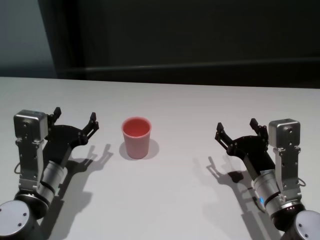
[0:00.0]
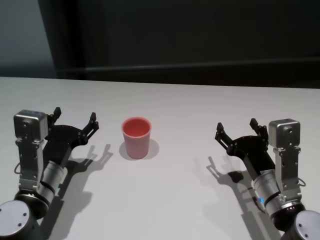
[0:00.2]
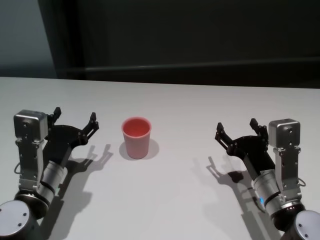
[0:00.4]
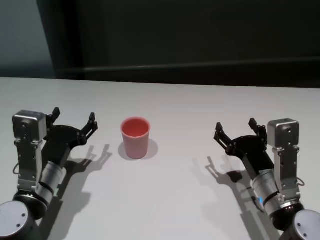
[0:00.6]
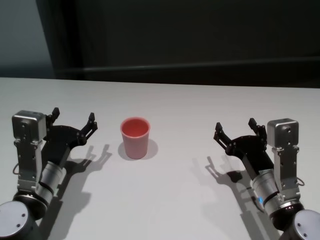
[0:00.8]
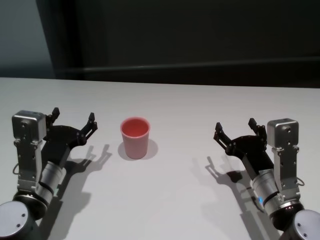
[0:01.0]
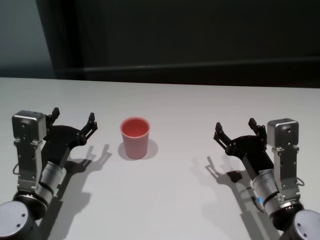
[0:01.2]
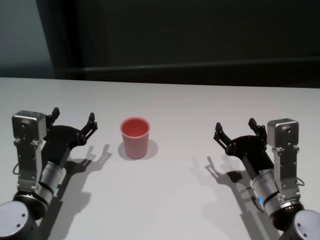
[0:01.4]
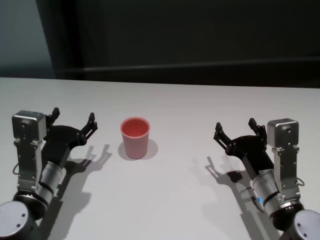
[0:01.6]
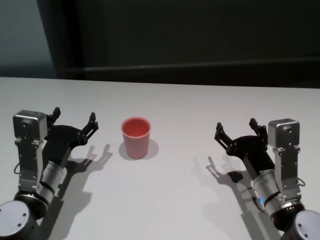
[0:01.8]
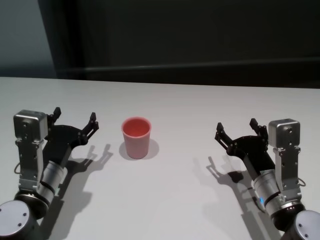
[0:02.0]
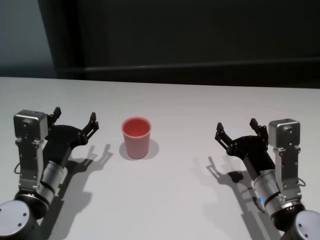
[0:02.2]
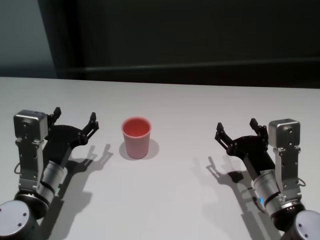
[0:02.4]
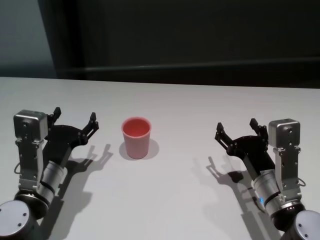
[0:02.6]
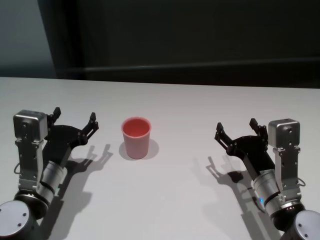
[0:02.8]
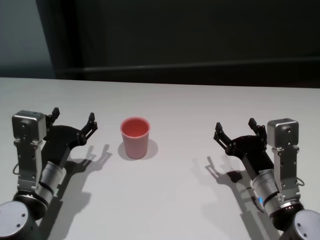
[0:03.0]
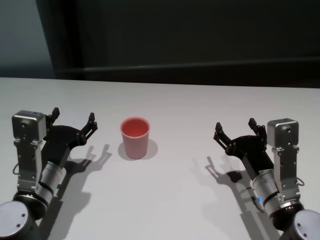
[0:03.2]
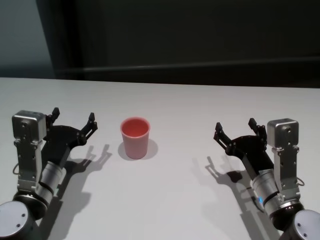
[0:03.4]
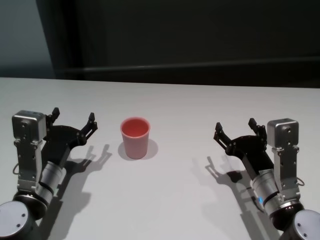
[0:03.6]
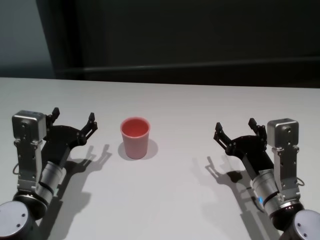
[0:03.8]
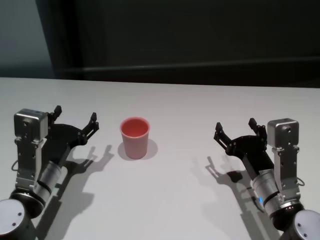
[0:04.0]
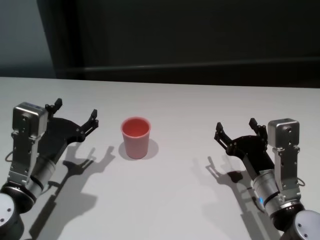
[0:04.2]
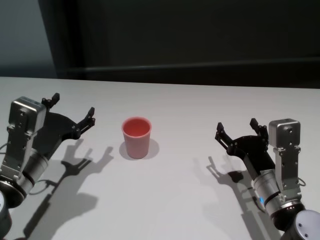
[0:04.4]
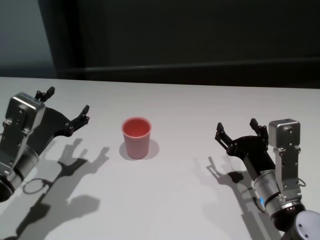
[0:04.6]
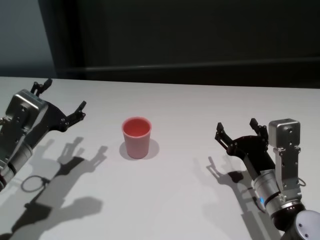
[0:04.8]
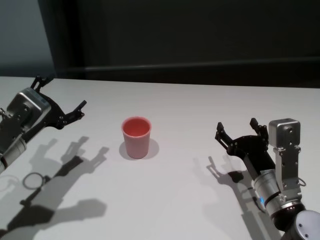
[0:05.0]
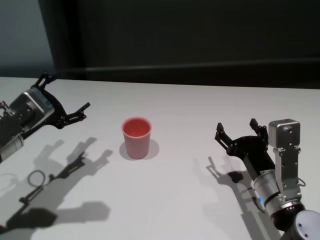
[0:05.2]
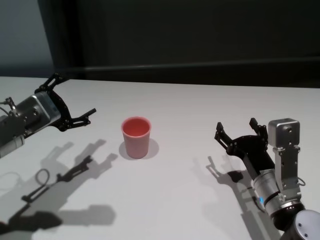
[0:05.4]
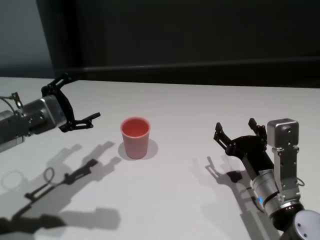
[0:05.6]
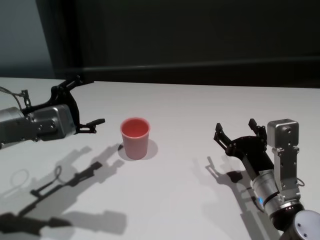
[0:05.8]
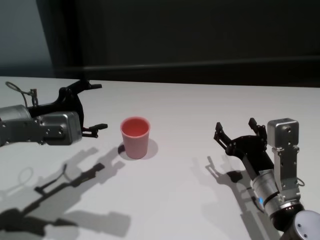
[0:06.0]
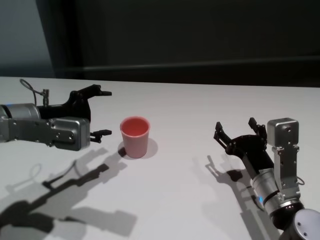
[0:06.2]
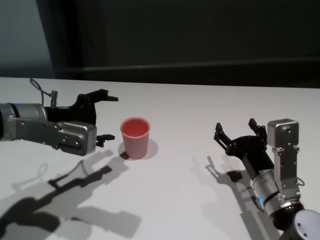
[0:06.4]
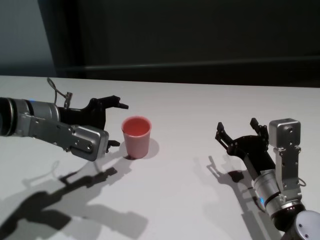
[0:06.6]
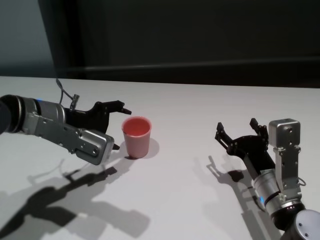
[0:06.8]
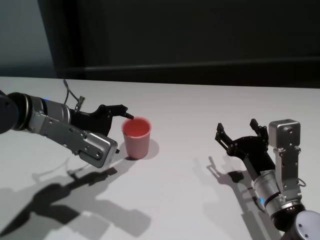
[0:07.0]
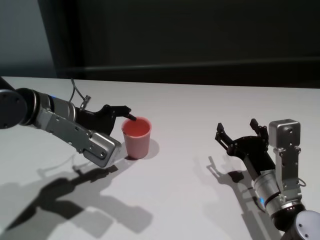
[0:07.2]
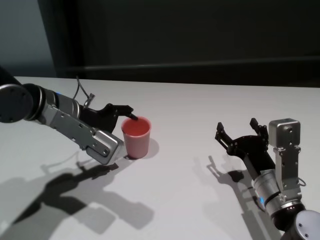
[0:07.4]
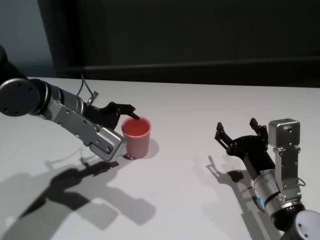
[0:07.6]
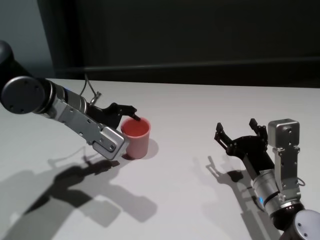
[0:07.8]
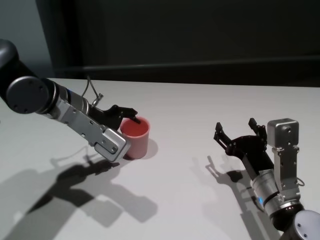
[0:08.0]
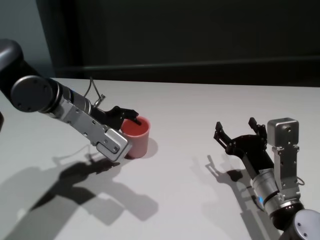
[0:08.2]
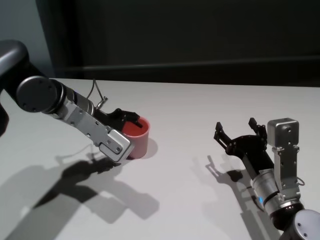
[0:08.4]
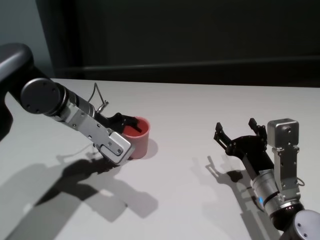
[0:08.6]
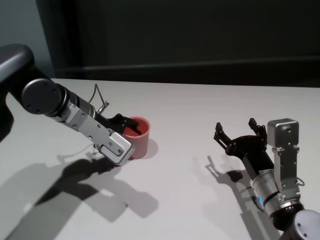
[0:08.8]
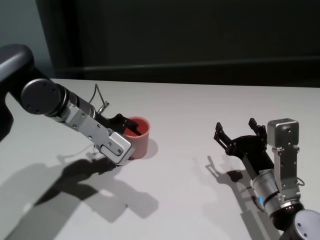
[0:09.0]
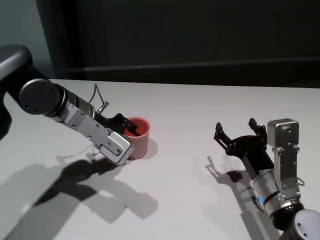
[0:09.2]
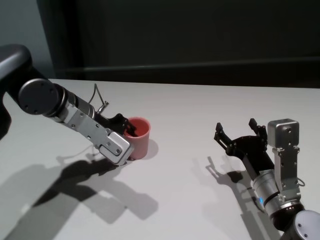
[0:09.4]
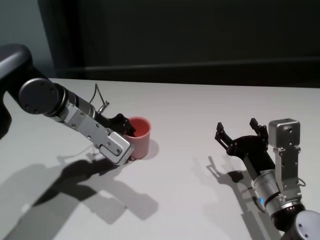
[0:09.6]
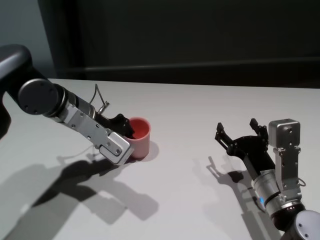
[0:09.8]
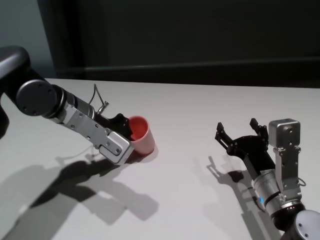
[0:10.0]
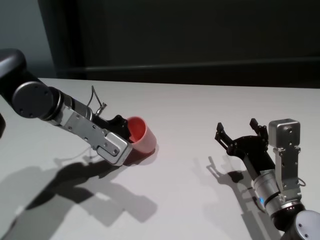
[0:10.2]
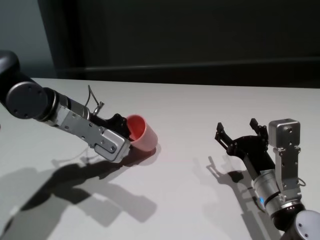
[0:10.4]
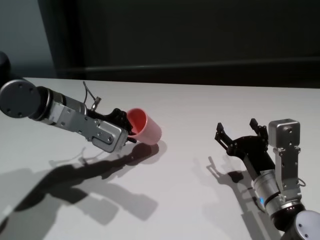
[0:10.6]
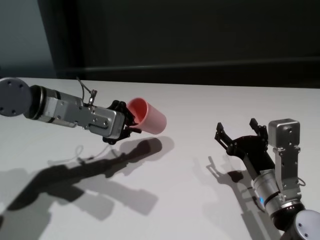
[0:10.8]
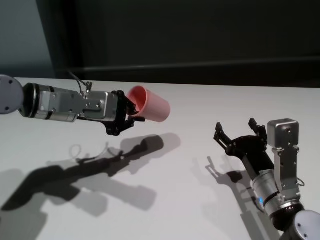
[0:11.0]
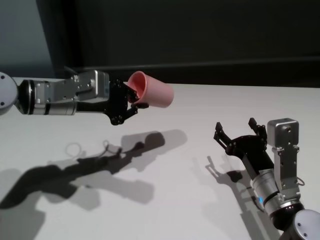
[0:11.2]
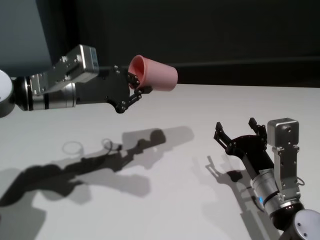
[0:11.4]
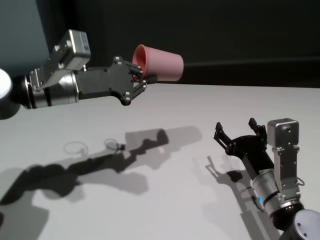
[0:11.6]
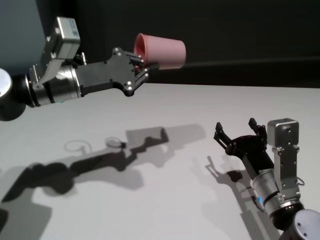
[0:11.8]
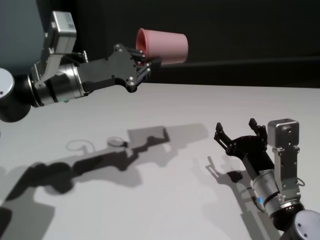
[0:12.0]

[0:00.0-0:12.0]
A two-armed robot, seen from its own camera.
Task of the whole recording: On the white table pick up the cup with one hand and transfer it to the other hand before turning it over.
Step, 0:00.0 to 0:09.6: Grasp the cup with left gripper.

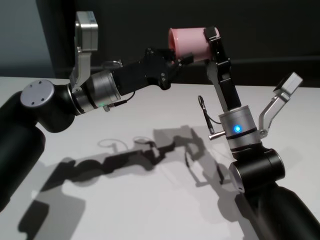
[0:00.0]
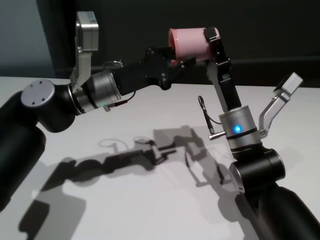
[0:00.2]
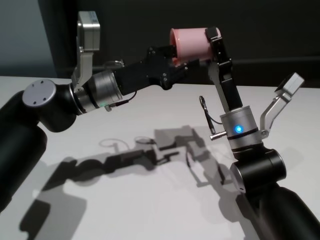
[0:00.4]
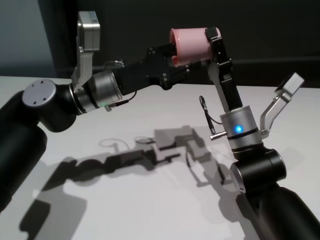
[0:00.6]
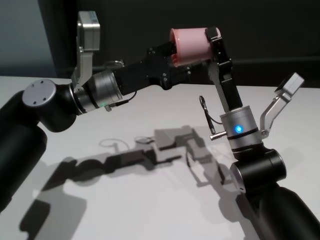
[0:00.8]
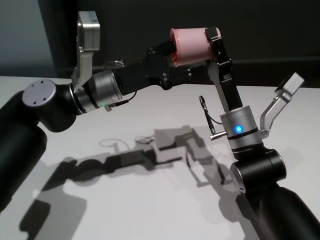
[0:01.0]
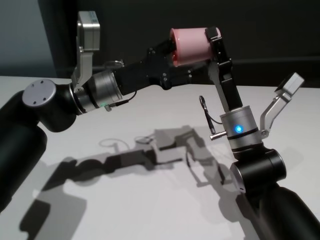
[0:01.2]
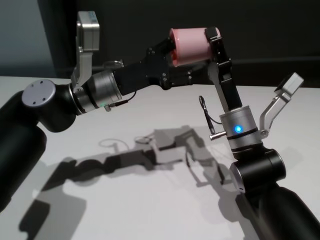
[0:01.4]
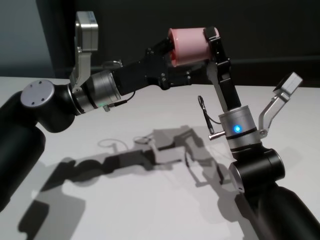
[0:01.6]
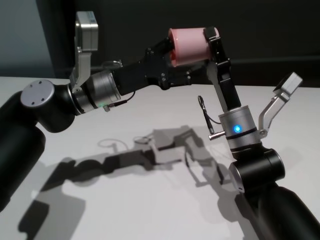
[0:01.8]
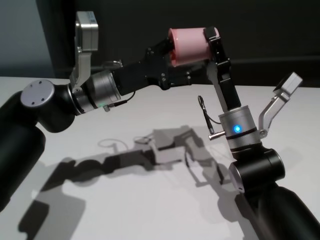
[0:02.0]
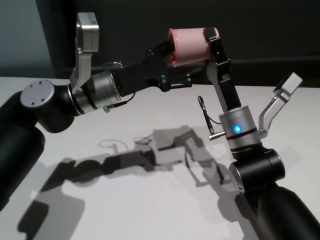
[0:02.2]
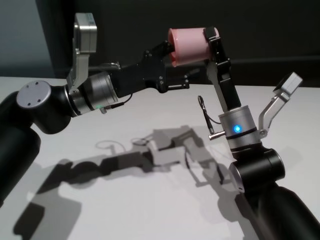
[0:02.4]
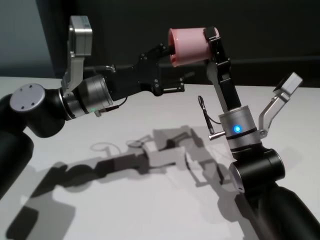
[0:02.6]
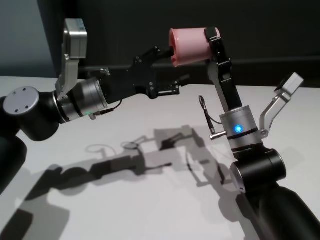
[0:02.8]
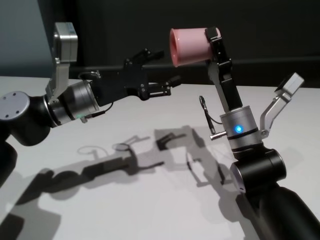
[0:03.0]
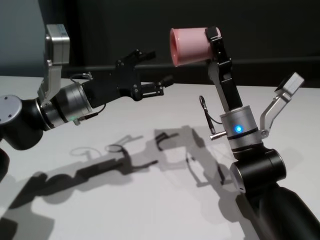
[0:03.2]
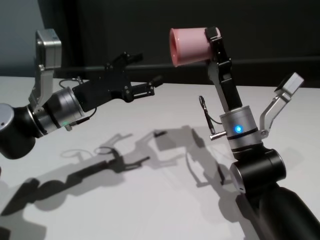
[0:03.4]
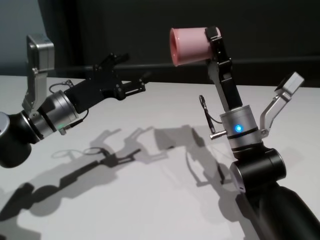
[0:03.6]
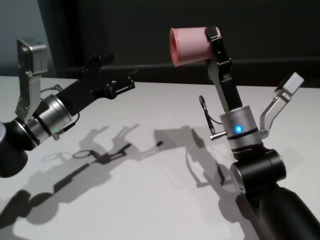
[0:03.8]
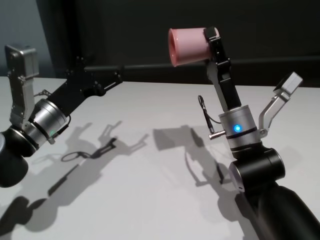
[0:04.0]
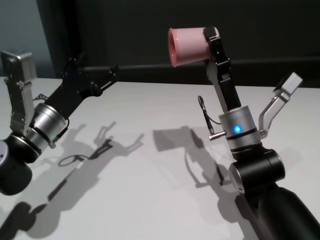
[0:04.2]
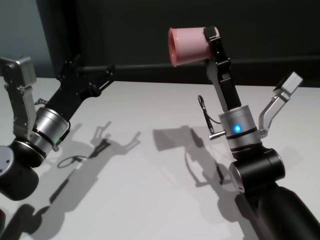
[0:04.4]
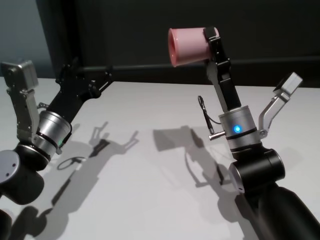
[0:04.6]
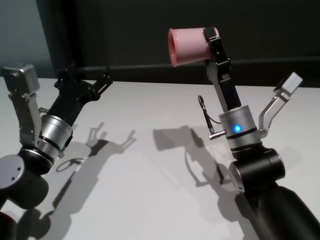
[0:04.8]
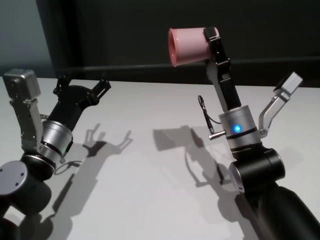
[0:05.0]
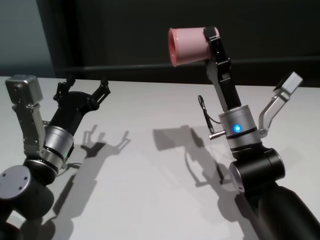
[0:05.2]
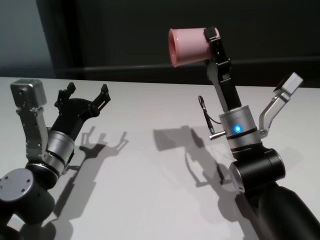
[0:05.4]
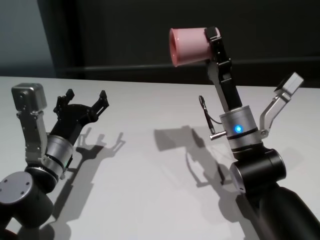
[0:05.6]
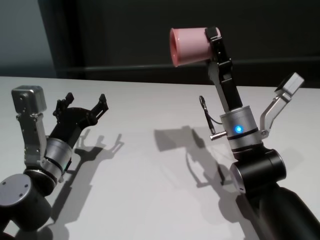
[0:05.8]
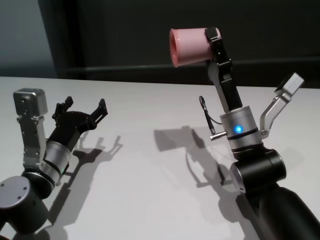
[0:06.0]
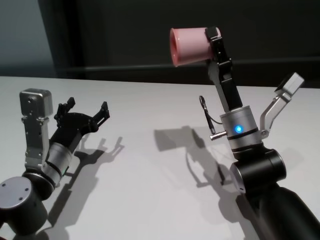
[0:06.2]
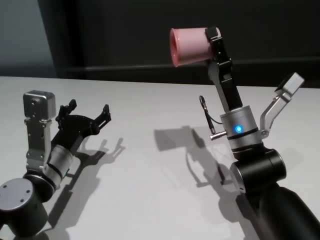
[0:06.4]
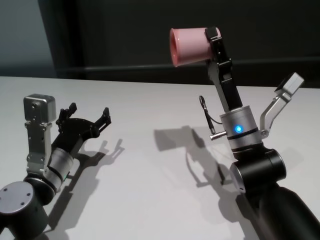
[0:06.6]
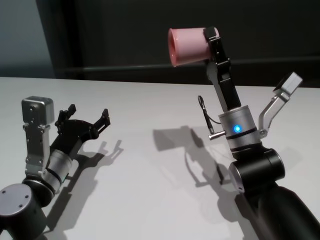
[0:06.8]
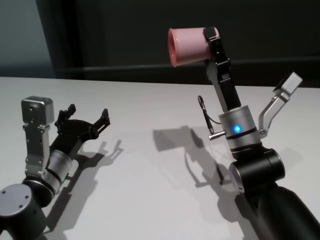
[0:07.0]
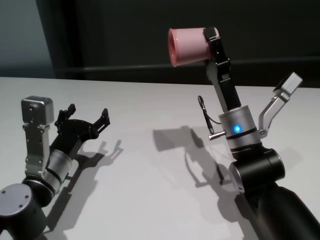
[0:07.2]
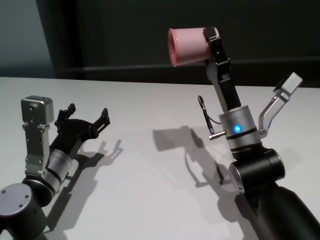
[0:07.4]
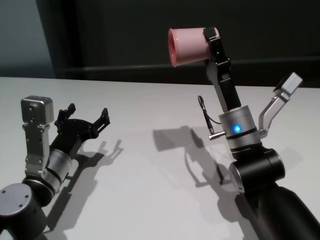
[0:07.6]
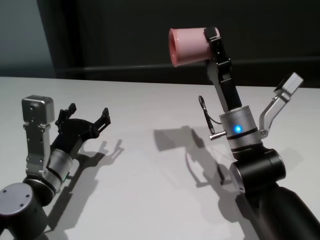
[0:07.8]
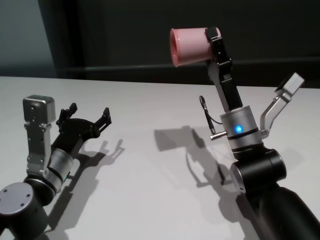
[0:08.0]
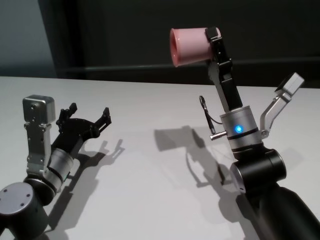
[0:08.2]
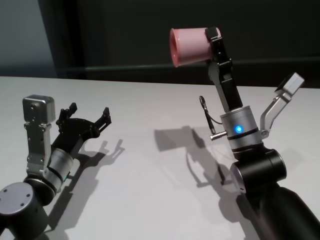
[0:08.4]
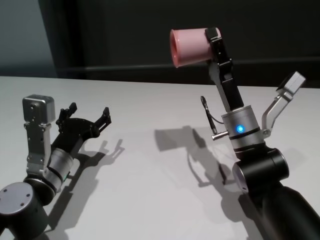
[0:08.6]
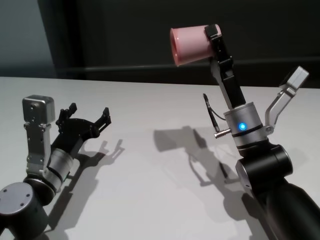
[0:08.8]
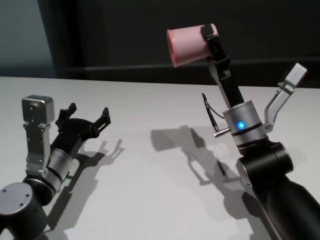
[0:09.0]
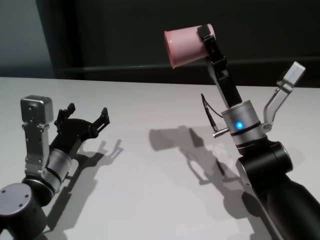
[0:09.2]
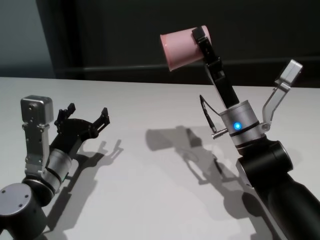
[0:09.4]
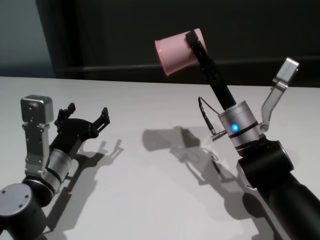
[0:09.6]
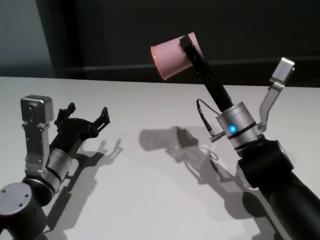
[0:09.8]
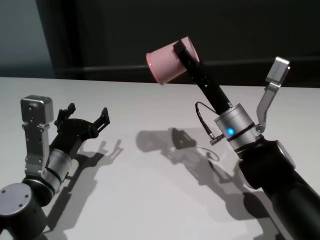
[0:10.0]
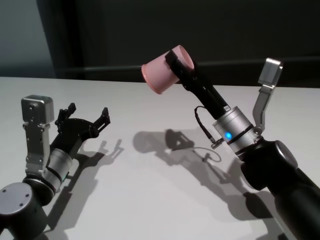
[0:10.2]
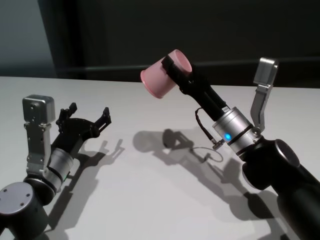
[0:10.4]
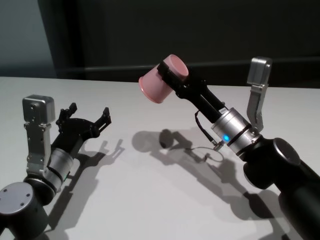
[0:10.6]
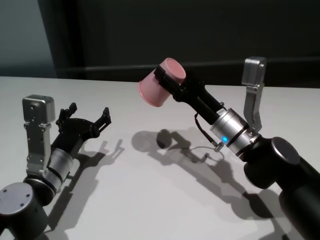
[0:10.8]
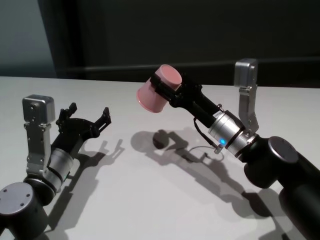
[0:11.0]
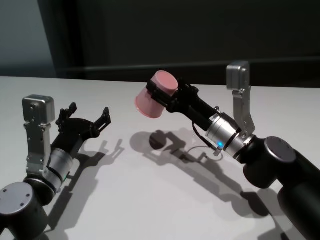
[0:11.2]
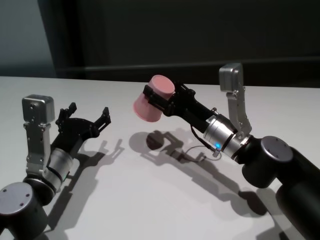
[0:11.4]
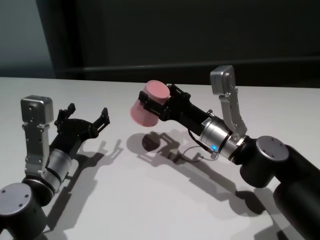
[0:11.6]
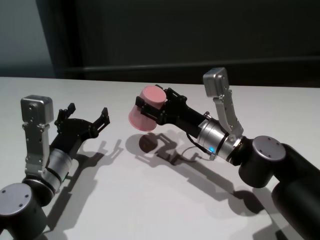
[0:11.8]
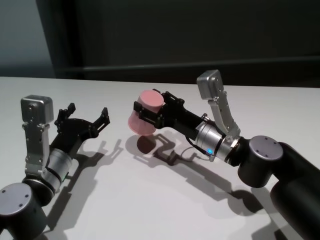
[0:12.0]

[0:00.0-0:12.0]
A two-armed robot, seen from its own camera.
Task of the whole recording: On the white table pick up the cup with one hand and transfer it to the other hand before turning it over.
Step, 0:00.0 to 0:03.2: Pass the cup to the right gripper.
